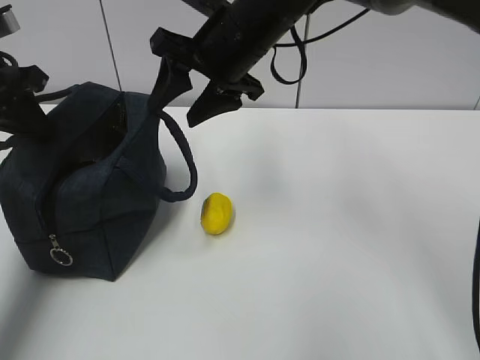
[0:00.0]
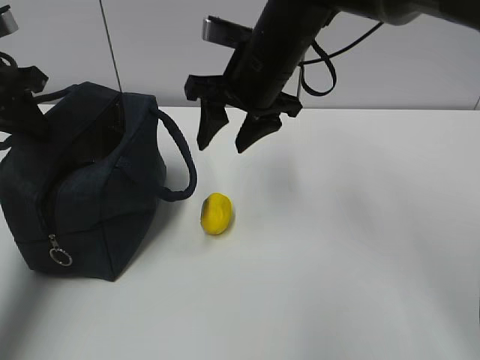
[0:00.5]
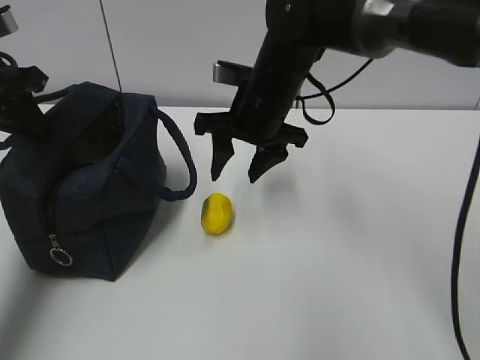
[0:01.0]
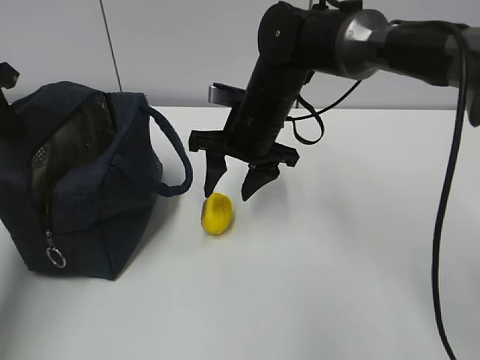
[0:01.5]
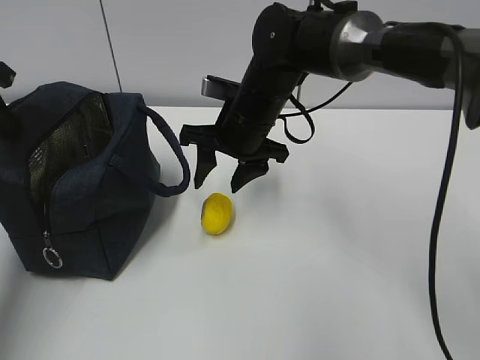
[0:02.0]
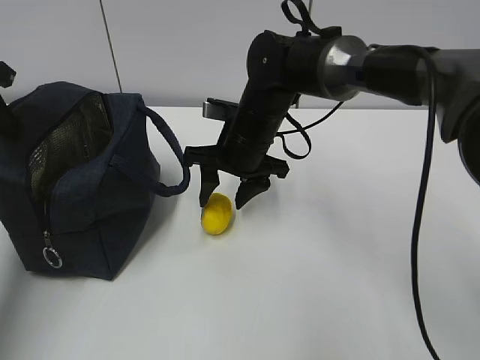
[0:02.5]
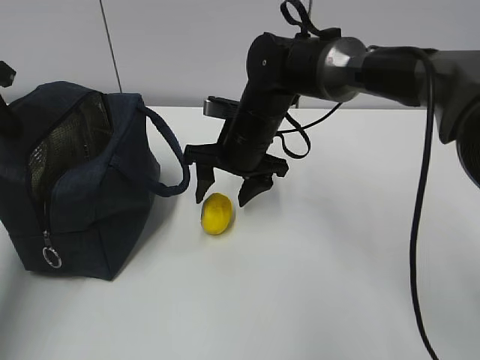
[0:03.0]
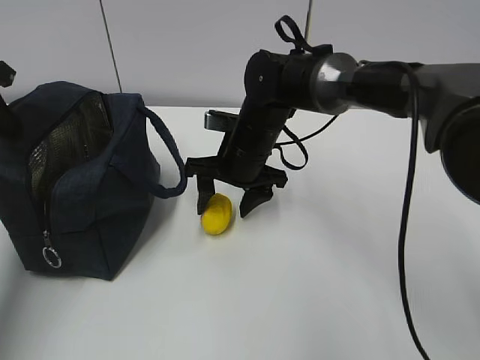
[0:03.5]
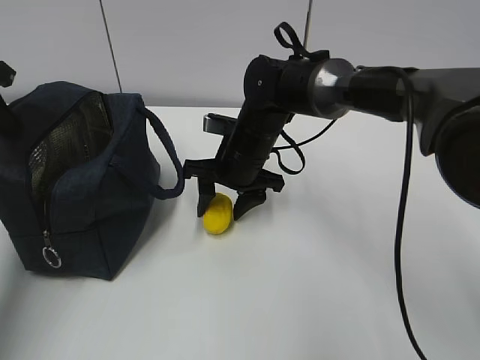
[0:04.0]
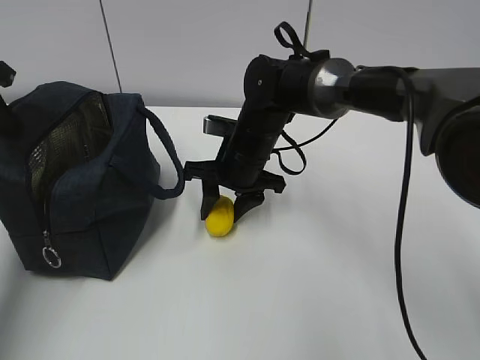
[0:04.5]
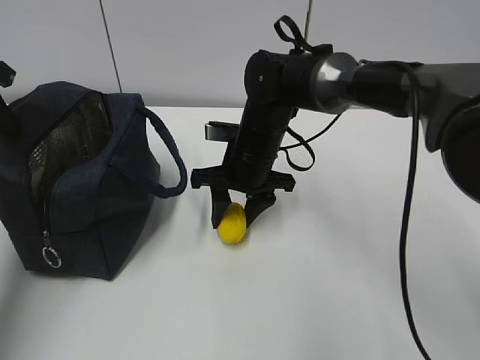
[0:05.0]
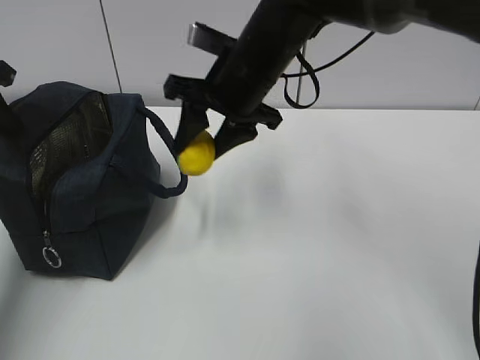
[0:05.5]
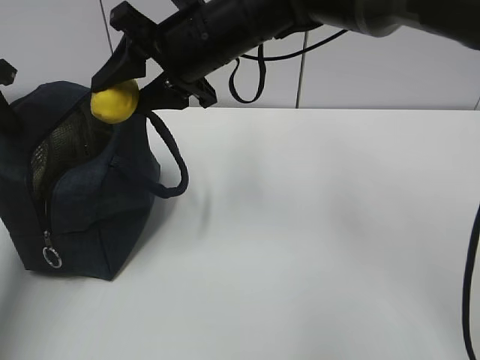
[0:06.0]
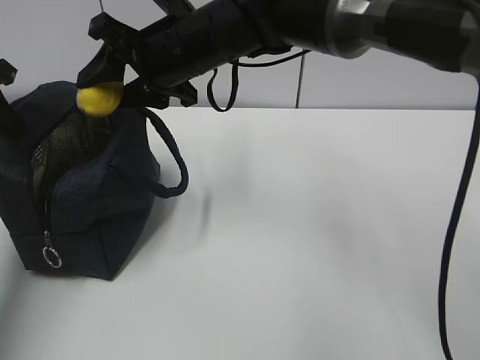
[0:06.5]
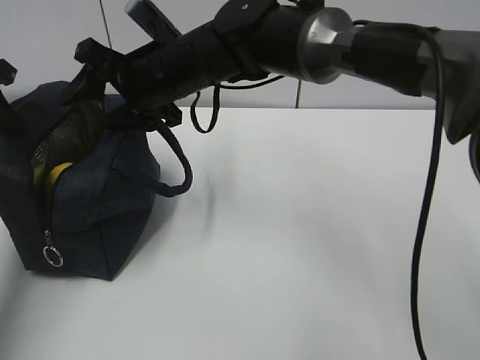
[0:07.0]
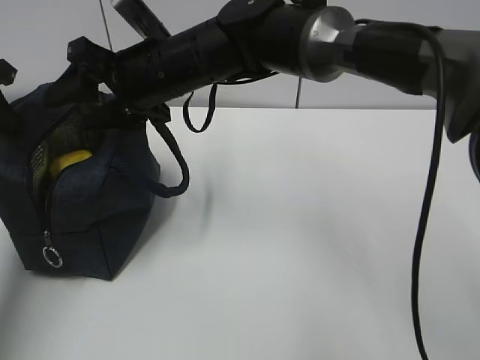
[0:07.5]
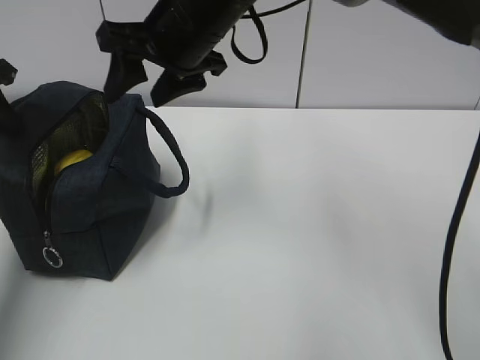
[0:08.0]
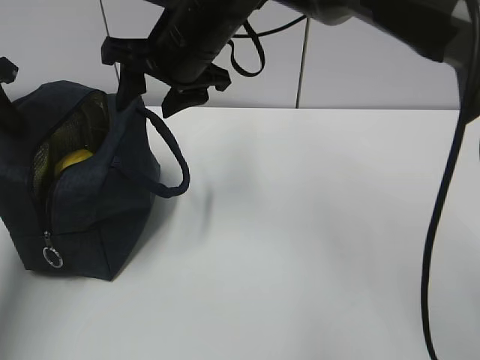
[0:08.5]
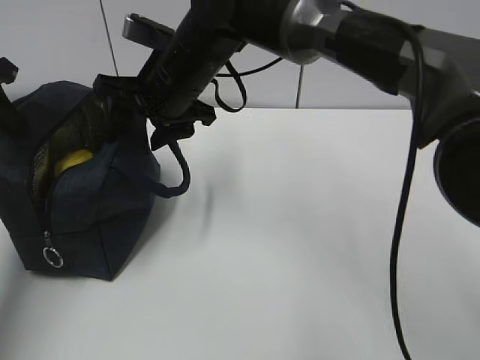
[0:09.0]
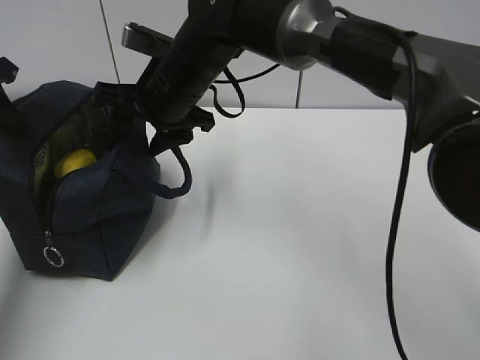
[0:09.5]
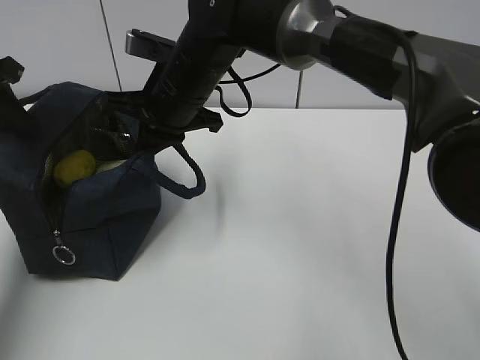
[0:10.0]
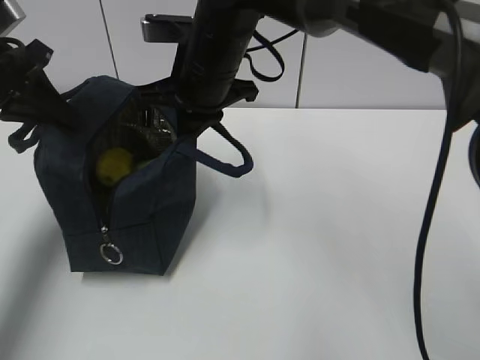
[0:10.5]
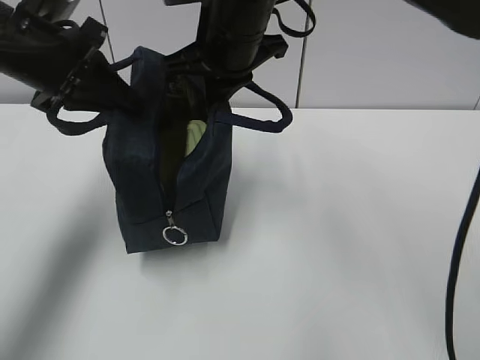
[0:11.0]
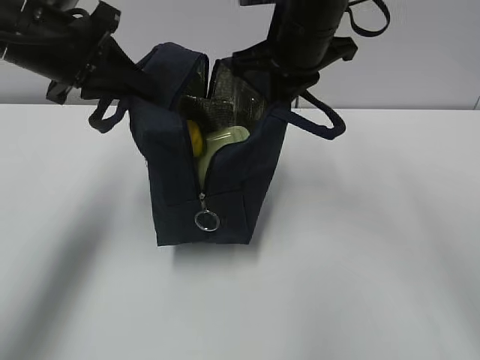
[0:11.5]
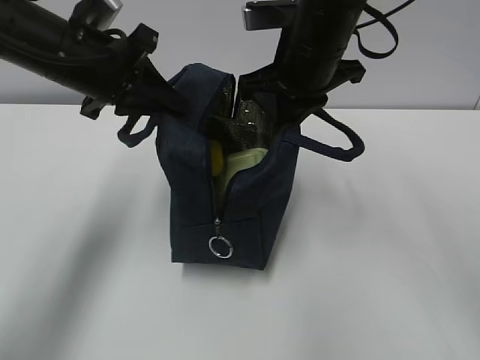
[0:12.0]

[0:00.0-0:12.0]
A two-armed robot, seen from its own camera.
Step, 0:01.5 to 0:03.0: Grab the lunch bag with your right hand.
Step, 0:03.5 to 0:06.5: Move the lunch bag to the right.
0:00.0 to 0:02.0: The right gripper shifts about 10 cm downward.
0:02.0 to 0:04.0: The right gripper travels downward by about 5 cm.
0:04.0 to 0:06.0: The right gripper travels upward by roughly 15 cm.
0:08.0 to 0:10.0: The right gripper heads downward, covering some 5 cm, and closes its fingers.
0:10.0 to 0:12.0: The right gripper is displaced to the right and upward by about 15 cm; the left gripper is displaced to the right by some 15 cm.

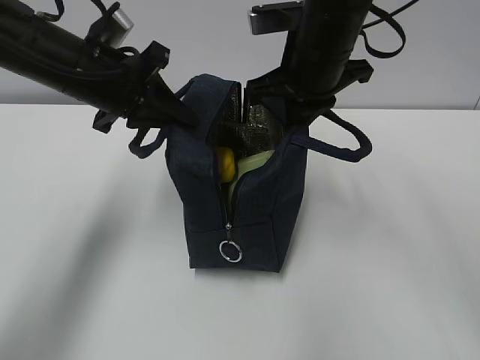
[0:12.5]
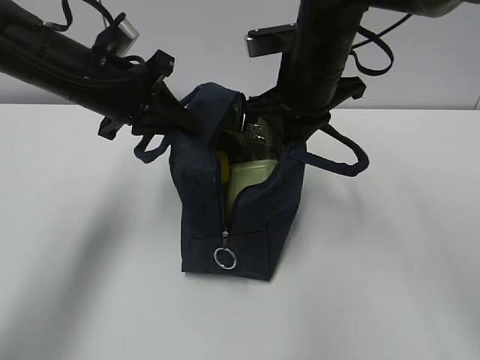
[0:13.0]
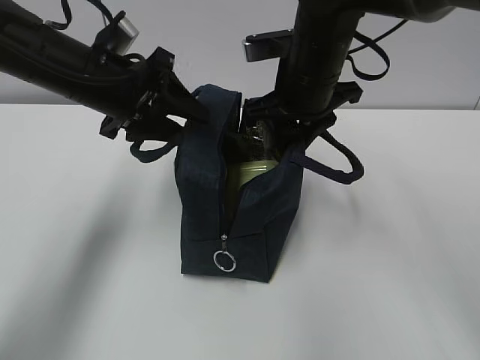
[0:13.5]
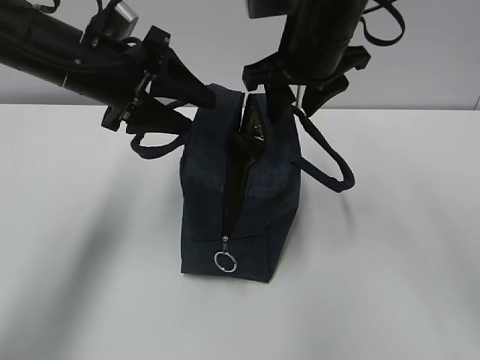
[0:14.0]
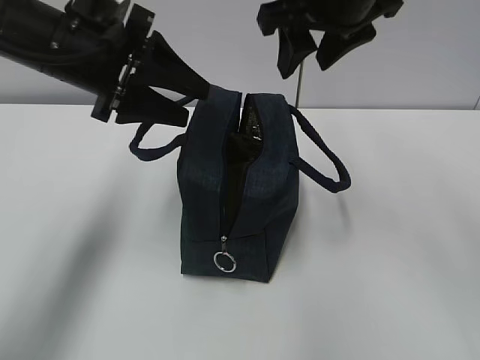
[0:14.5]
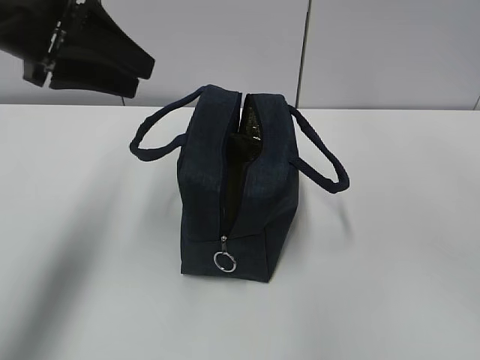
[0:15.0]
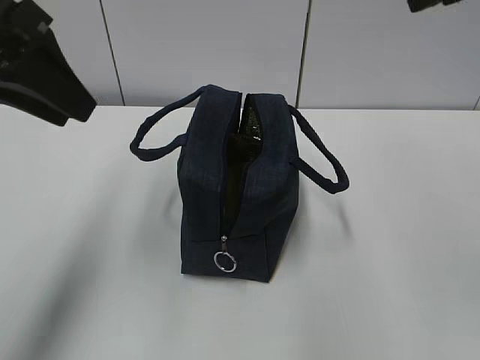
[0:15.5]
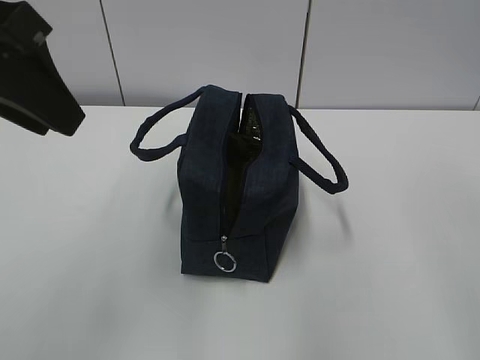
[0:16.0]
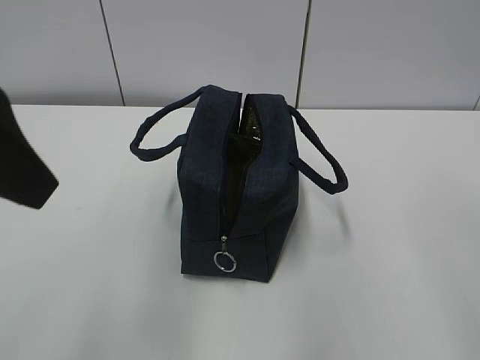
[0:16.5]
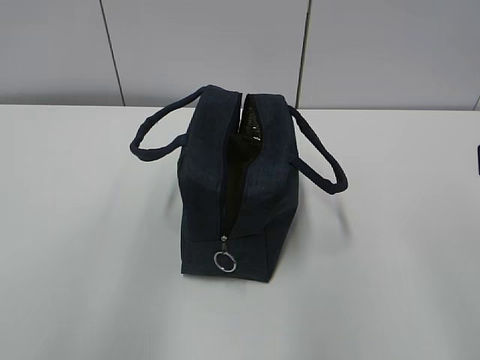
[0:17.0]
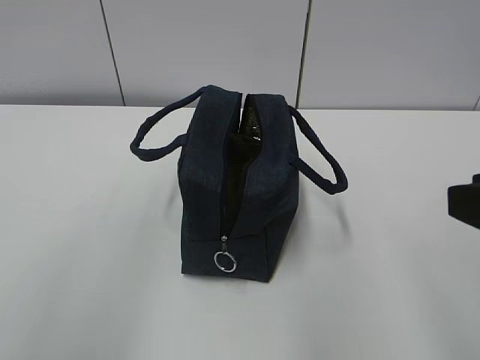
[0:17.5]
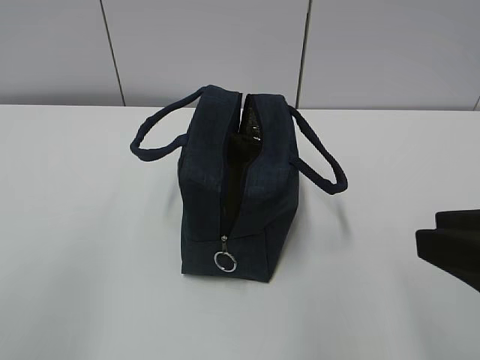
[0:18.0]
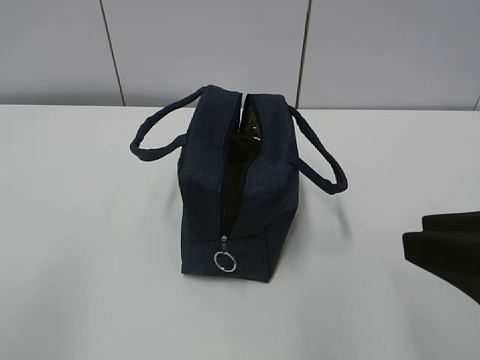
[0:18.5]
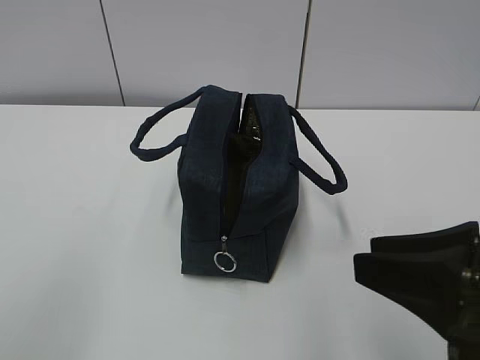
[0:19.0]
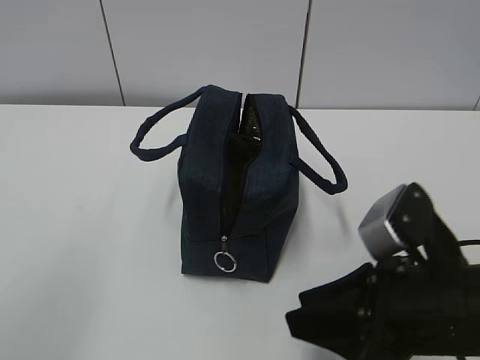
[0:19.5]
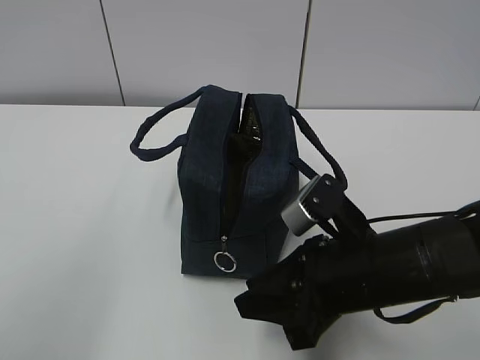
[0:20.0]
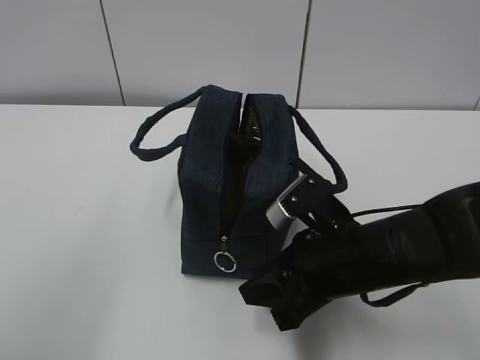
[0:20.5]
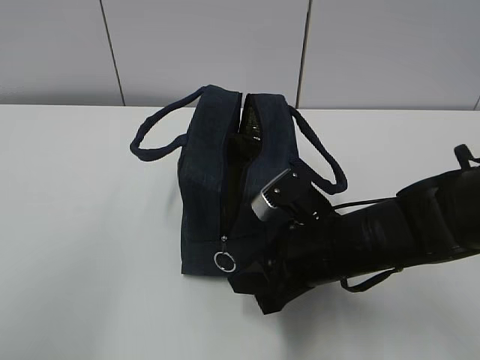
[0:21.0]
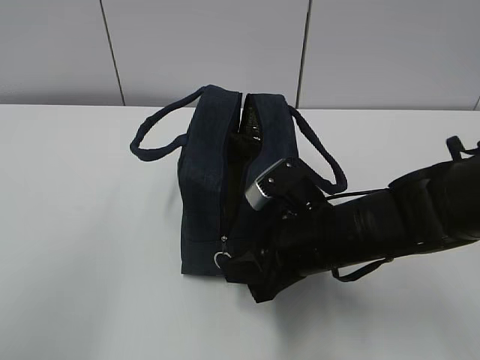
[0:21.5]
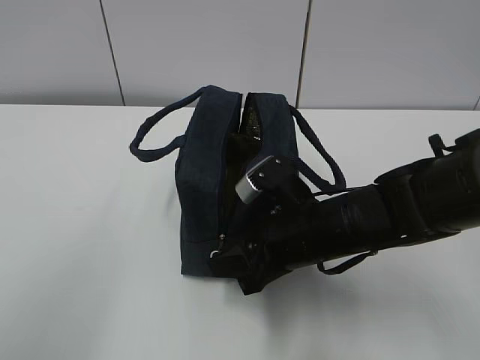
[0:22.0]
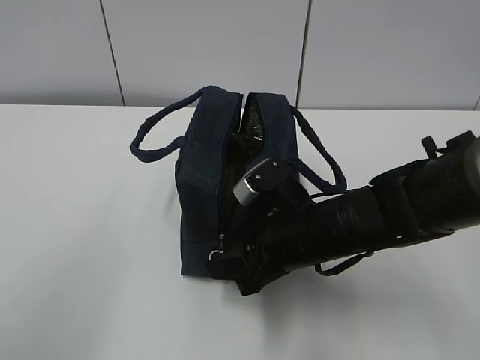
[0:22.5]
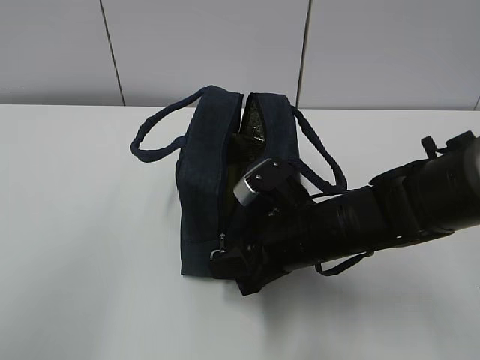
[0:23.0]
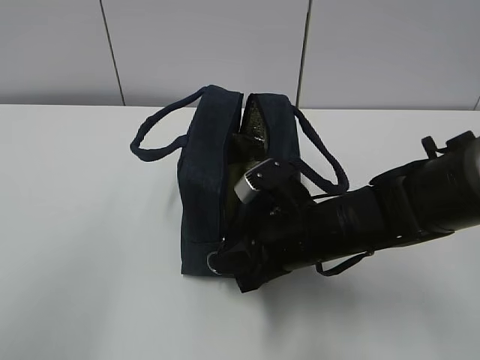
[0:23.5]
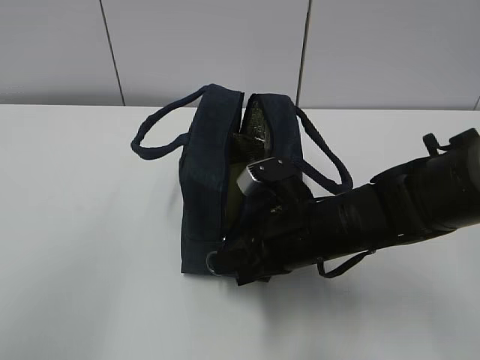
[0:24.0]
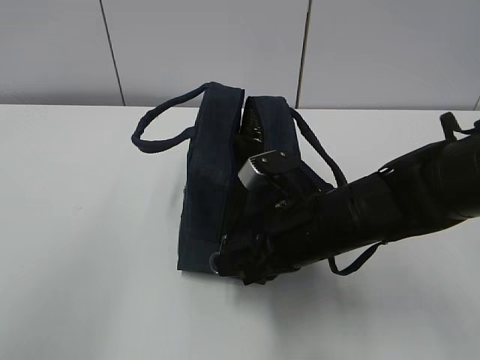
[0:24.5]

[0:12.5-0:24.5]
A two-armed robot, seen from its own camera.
Step, 0:12.5 to 0:22.5: Grab the lunch bag with your left hand.
0:12.5 to 0:14.5: The left gripper opens up; the right gripper moves upward, about 10 cm, and opens.
0:14.5 to 0:16.5: The right gripper travels backward and to the right by some 25 cm. Meanwhile the left gripper travels backward and upward by about 20 cm, and closes.
0:16.5 to 0:18.5: The left gripper is displaced backward and to the left by approximately 20 cm. Meanwhile the right gripper moves downward, roughly 10 cm.
0:18.5 to 0:20.5: The right gripper goes some 20 cm downward, forward and to the left.
0:20.5 to 0:22.5: The right gripper ends up approximately 5 cm from where it was.
0:22.5 to 0:24.5: The right gripper closes.

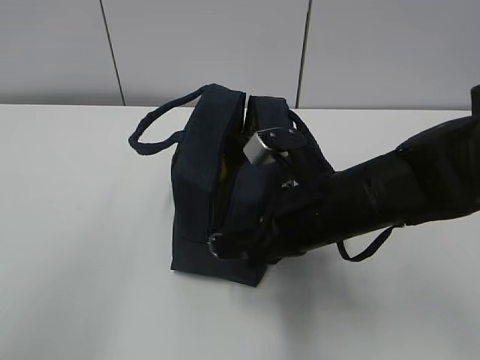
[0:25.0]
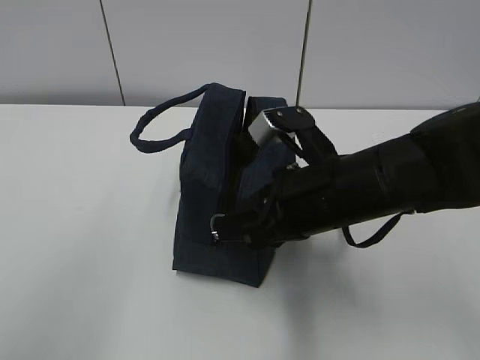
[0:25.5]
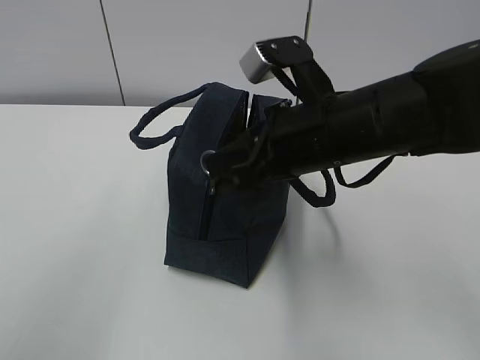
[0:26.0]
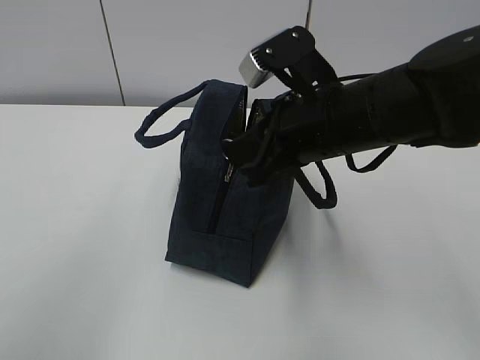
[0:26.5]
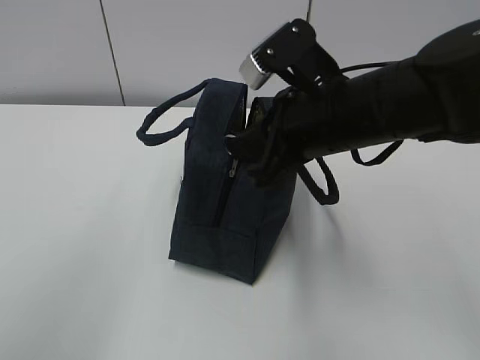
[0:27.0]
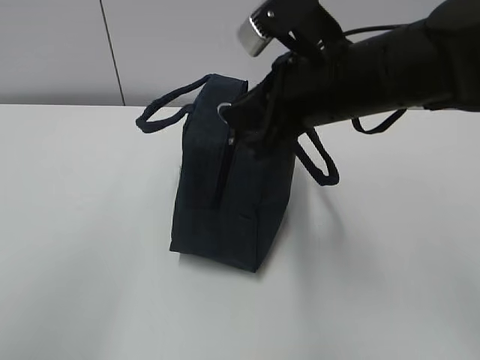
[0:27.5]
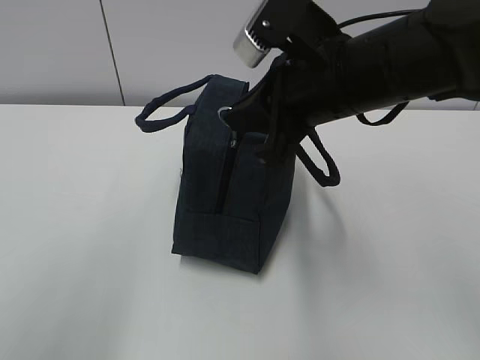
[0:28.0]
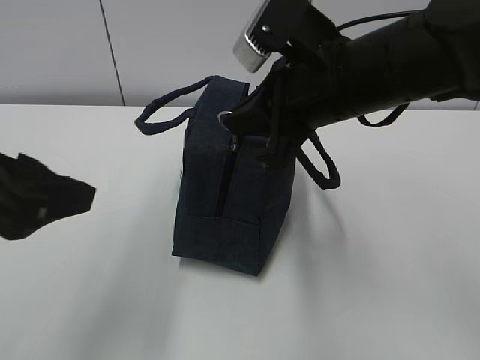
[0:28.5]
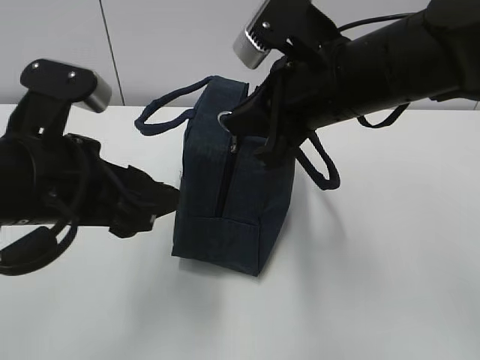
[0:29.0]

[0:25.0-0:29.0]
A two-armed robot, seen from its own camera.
0:25.0 to 0:27.0: The right gripper shifts roughly 5 cm upward.
0:27.0 to 0:29.0: The left gripper goes about 20 cm forward, to the right and downward, and opens up.
